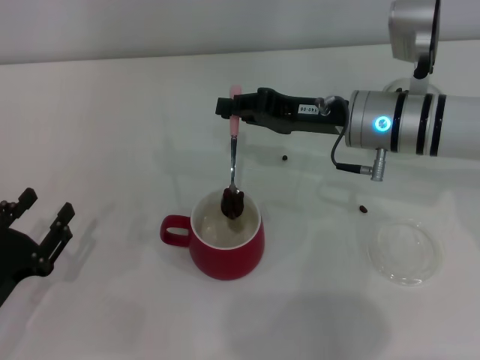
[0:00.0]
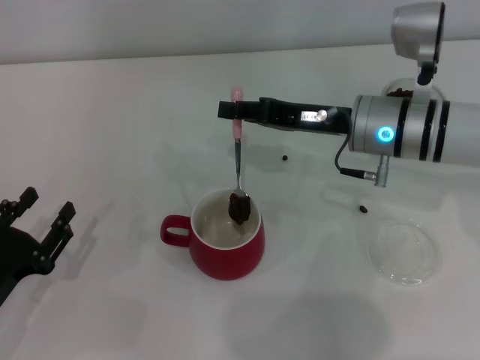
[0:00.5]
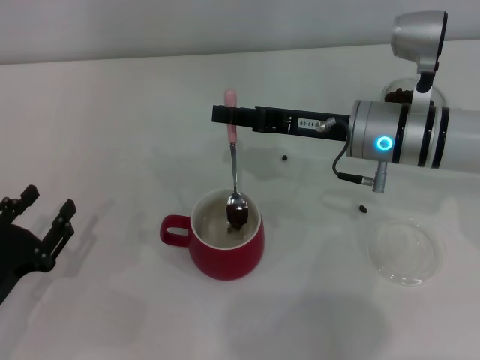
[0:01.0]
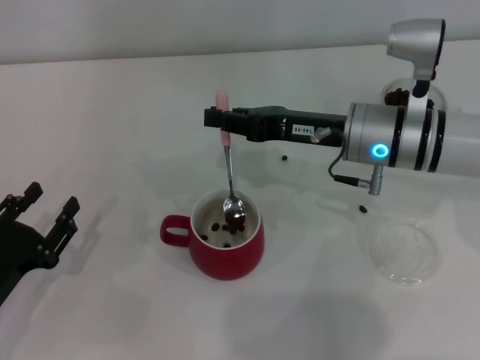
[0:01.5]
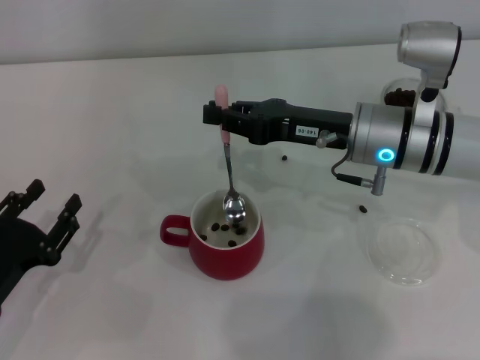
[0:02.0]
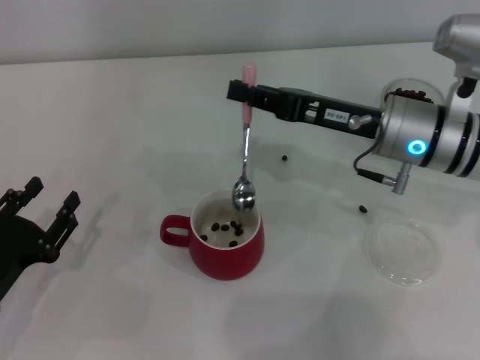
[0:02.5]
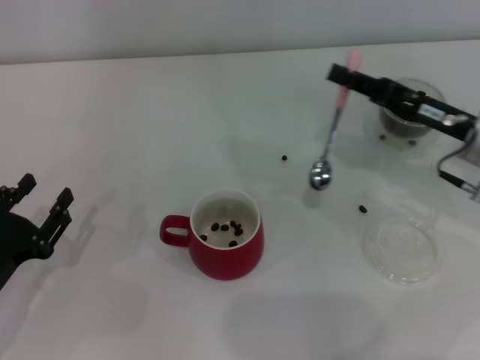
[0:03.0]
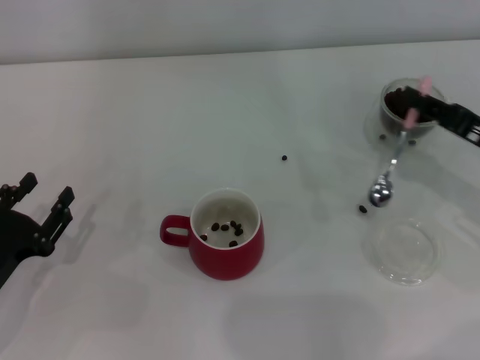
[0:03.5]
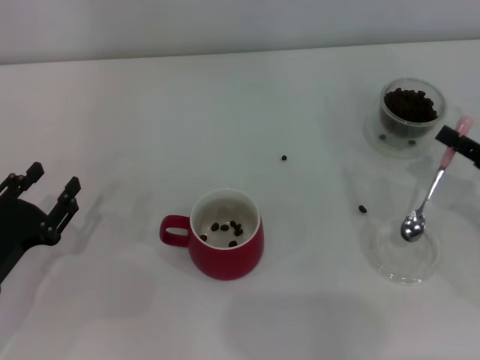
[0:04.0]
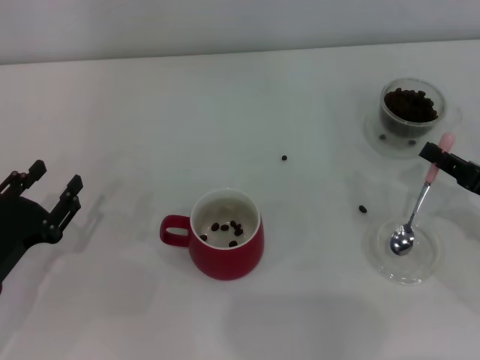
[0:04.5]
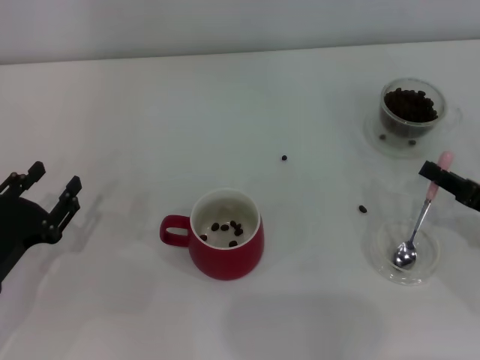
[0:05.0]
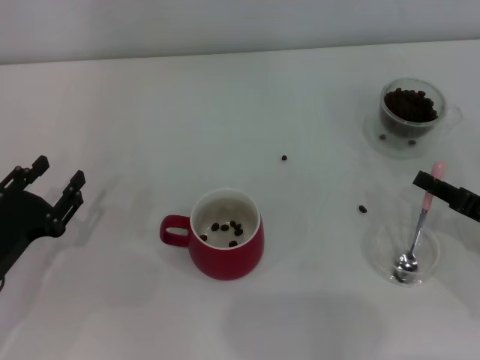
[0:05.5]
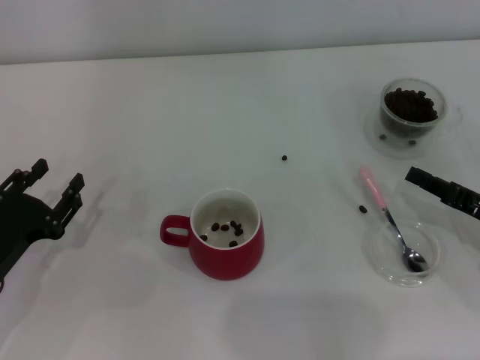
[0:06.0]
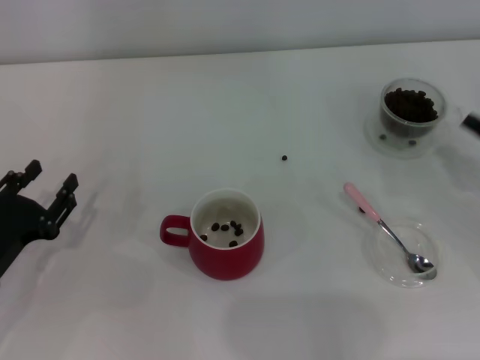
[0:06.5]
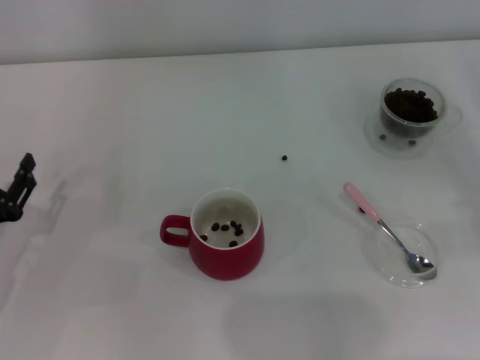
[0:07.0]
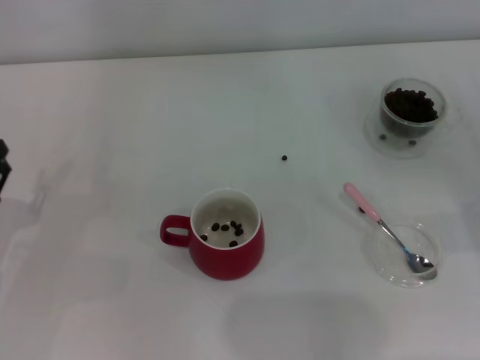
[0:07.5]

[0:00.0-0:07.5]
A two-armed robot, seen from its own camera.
Task of the whole recording: Use a pink spoon to take out the coffee beans from the glass and pour them into the red cup.
Step, 0:00.0 to 0:02.0: Scoop a spoonful of beans into the cup with the right gripper.
Step, 0:02.5 to 0:06.0: Place the spoon back in its original place with the right gripper.
0:02.0 to 0:04.0: The right gripper travels to the right and backward by roughly 20 cm.
0:04.0 to 0:05.5: The grippers make only small movements.
0:05.5 to 0:07.5: The right gripper travels to the right by approximately 5 cm.
